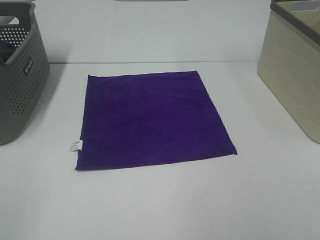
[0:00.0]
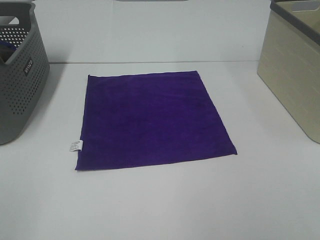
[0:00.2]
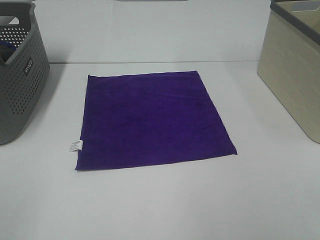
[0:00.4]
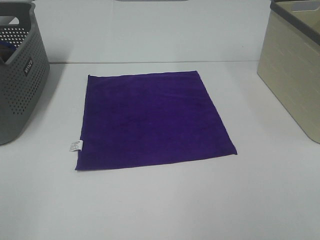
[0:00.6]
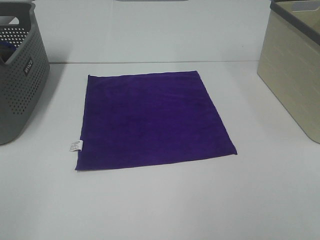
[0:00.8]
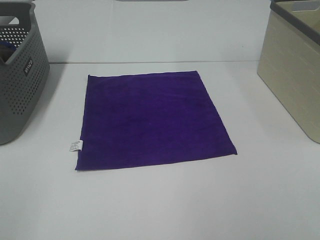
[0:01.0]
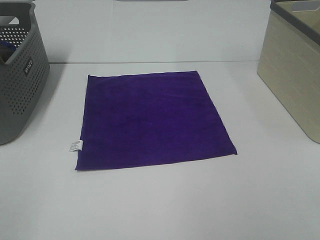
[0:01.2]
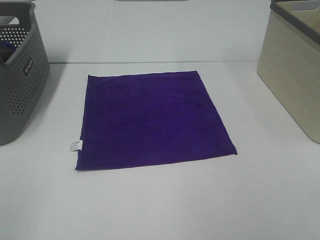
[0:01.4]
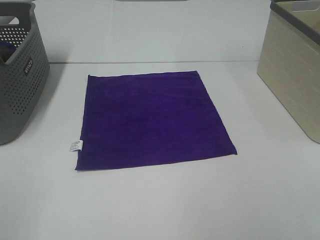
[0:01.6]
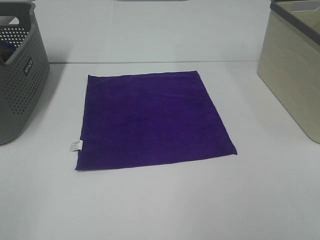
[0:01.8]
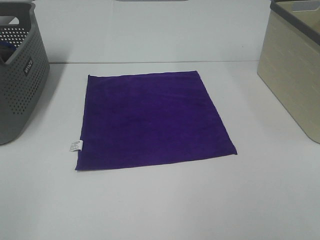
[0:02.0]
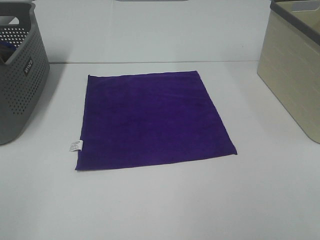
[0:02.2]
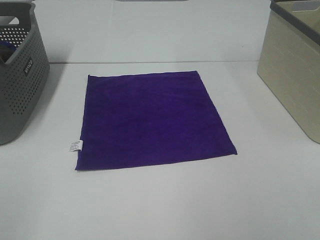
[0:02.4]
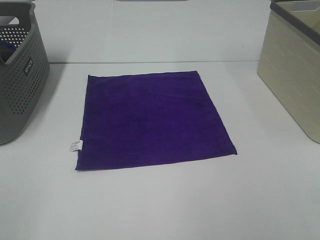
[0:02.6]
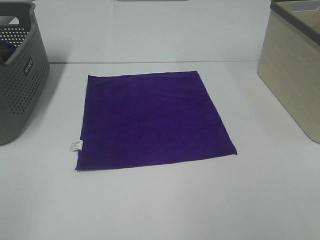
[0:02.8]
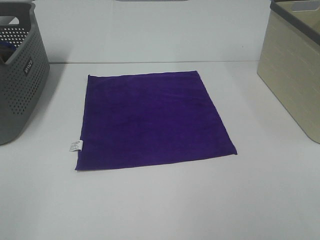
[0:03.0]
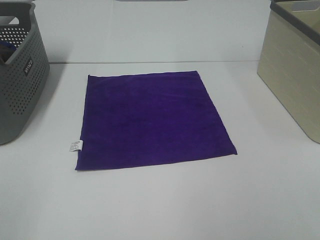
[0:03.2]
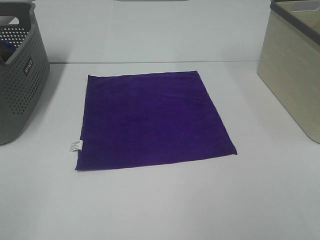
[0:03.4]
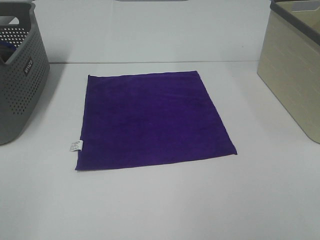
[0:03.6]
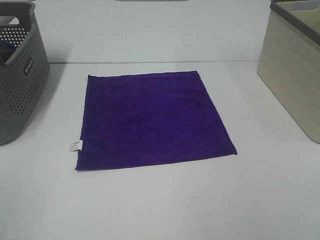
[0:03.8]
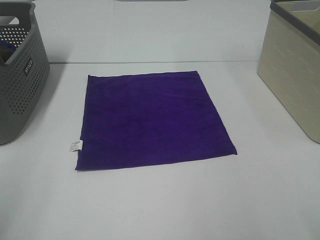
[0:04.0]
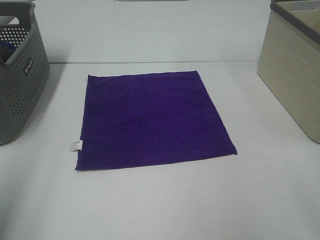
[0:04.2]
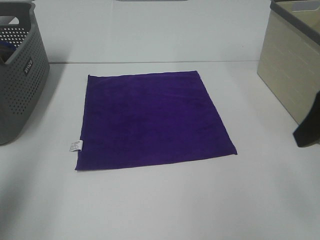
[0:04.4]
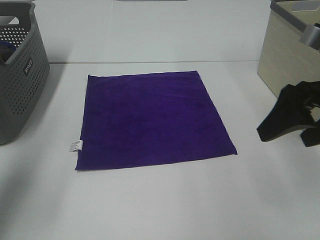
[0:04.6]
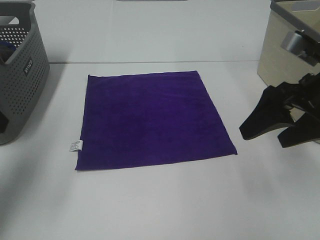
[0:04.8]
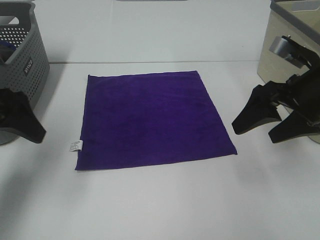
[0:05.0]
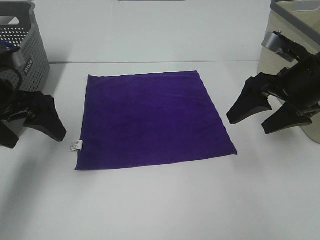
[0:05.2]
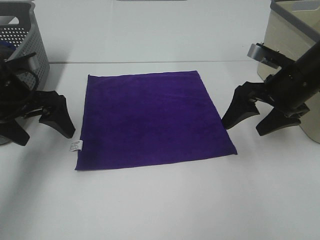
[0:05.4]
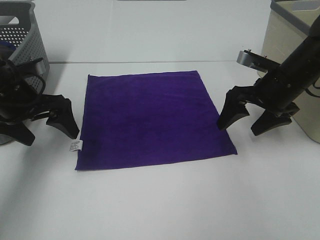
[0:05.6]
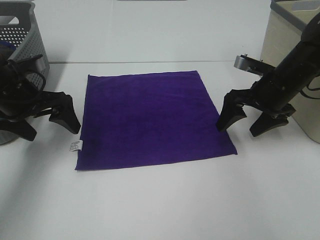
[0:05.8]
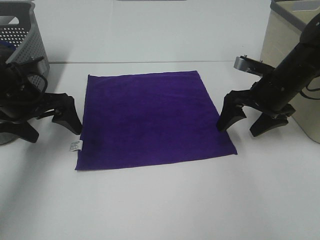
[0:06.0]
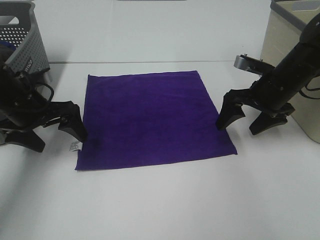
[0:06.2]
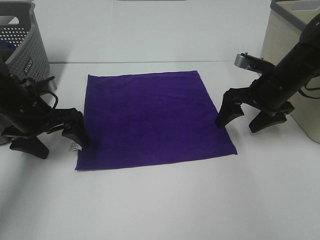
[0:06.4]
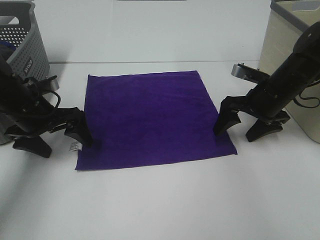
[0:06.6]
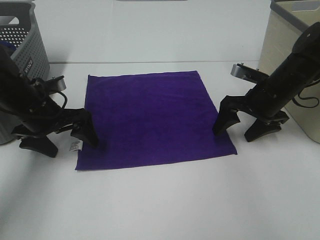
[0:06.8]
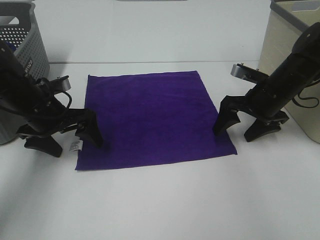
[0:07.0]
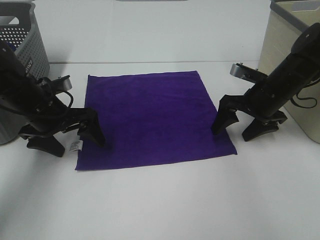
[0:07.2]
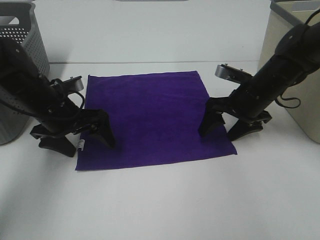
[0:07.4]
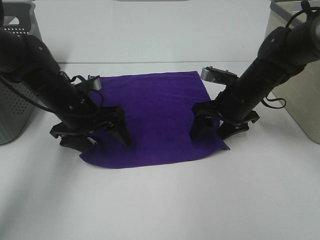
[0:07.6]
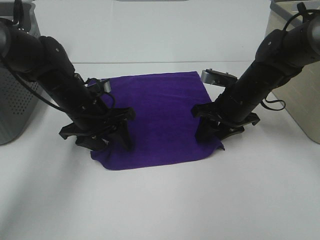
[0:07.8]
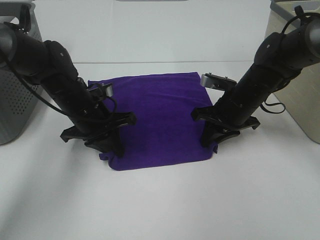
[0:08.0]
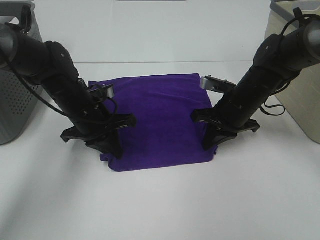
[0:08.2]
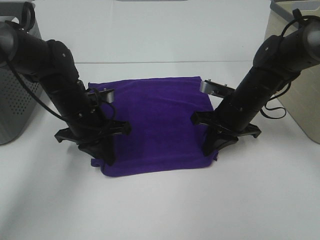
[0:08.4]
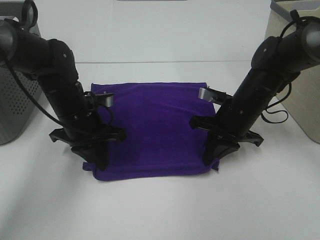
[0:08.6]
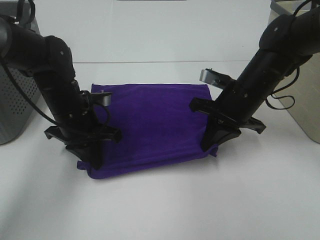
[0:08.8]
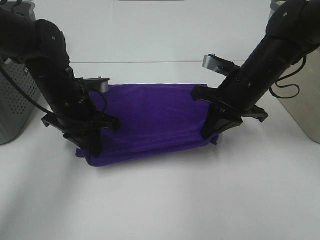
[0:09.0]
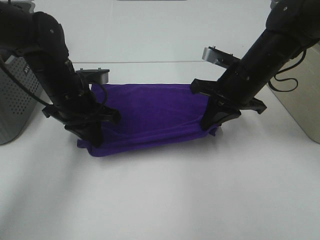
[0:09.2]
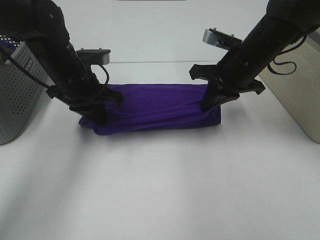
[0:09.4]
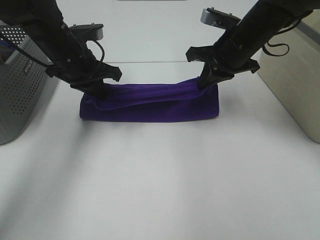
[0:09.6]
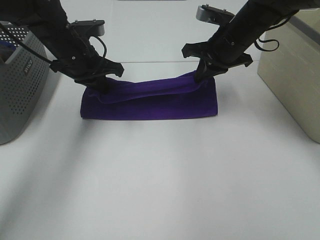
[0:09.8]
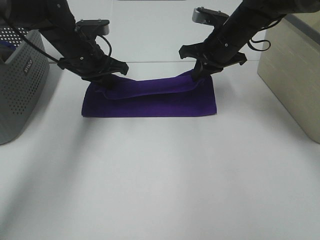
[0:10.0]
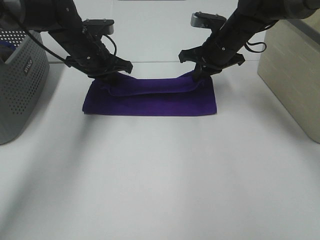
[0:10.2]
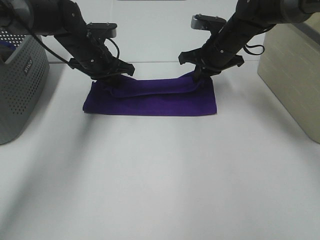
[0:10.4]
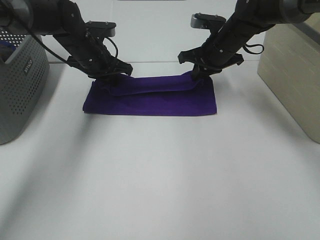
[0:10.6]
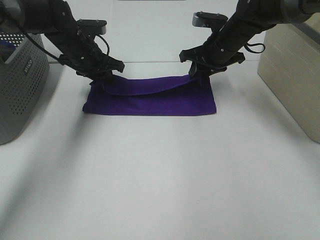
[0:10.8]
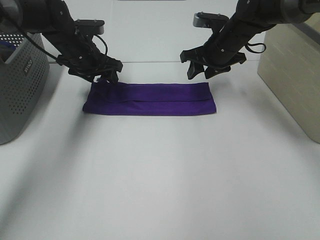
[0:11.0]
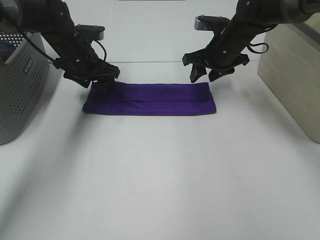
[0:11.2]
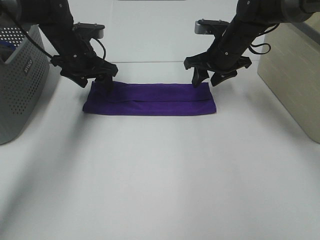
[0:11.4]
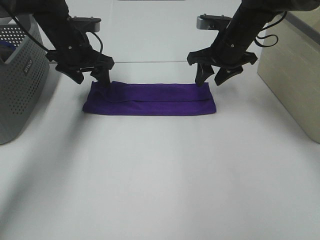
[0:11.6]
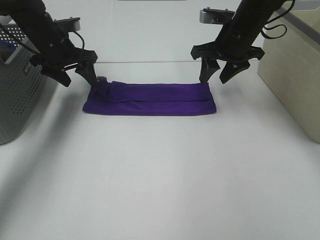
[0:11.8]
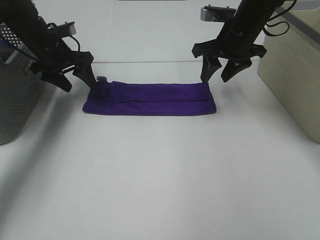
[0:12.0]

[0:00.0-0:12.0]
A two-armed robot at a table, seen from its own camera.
Task of the whole recording: Fold towels.
Step, 0:00.0 to 0:08.2: Left hand: grab the bottom left corner of purple towel.
Step, 0:00.0 to 0:08.2: Right hand: grab the bottom right corner of purple towel.
Step, 0:08.4 to 0:09.8: Left hand: fold the purple towel up.
Step, 0:08.4 to 0:09.8: Right hand: fold the purple towel up.
0:00.0 to 0:03.0: Both grippers stay put.
0:03.0 to 0:04.4: Both grippers travel together forward, approximately 20 cm.
0:04.4 to 0:06.0: The grippers both shift forward and downward by approximately 25 cm.
0:06.0 to 0:07.6: The right gripper goes roughly 5 cm to the left, while the left gripper heads to the right and downward, covering roughly 10 cm.
0:07.6 to 0:09.0: The left gripper closes, while the right gripper is displaced upward by approximately 5 cm, and closes.
0:09.0 to 0:10.4: The grippers both shift forward by some 15 cm.
0:10.4 to 0:12.0: The right gripper ends up about 5 cm from where it was, and opens up. Meanwhile the left gripper moves to the left, some 10 cm, and opens up.

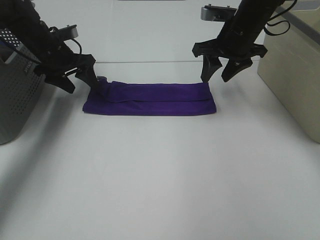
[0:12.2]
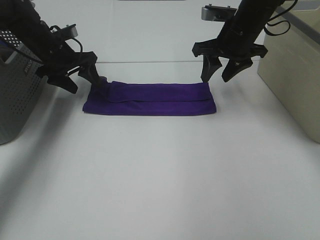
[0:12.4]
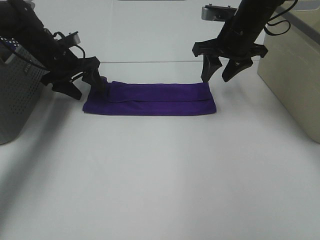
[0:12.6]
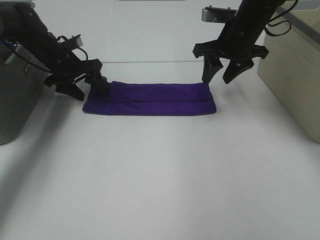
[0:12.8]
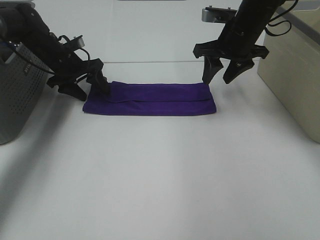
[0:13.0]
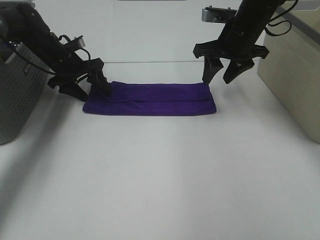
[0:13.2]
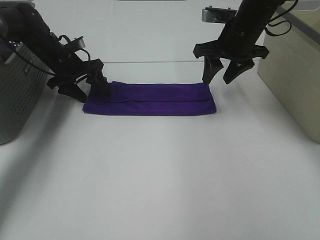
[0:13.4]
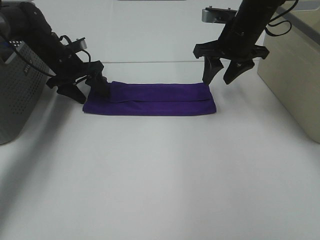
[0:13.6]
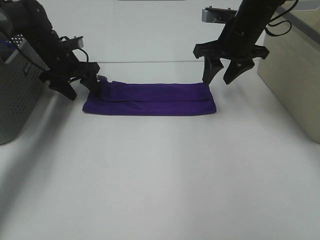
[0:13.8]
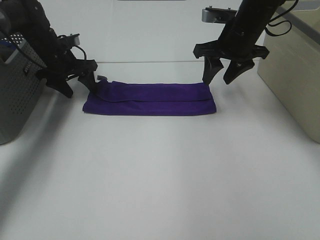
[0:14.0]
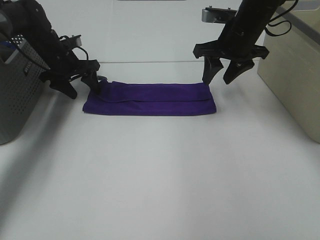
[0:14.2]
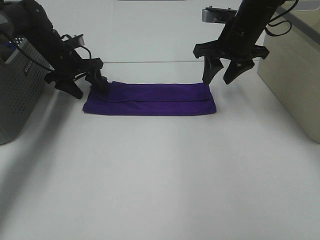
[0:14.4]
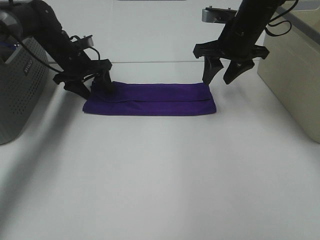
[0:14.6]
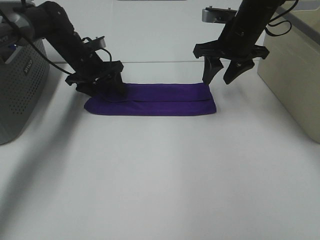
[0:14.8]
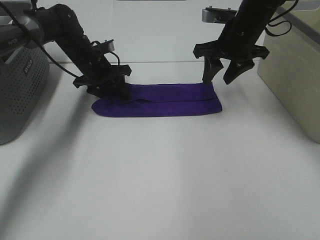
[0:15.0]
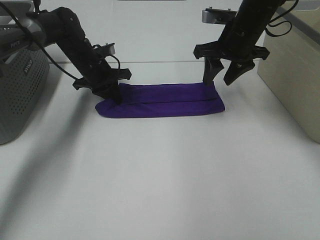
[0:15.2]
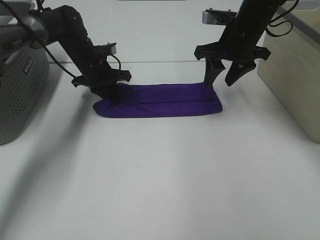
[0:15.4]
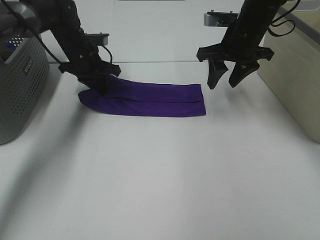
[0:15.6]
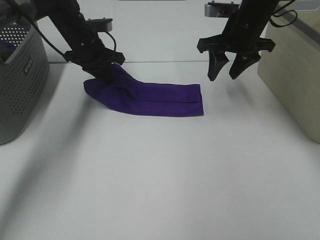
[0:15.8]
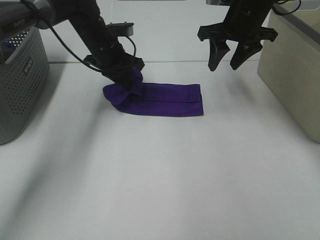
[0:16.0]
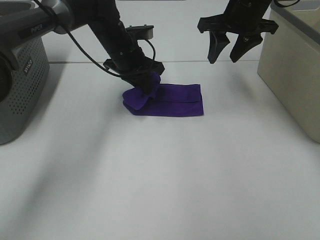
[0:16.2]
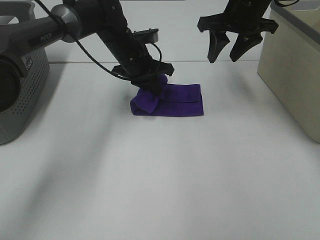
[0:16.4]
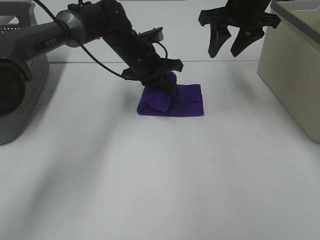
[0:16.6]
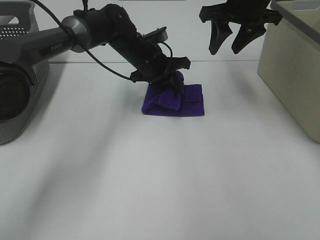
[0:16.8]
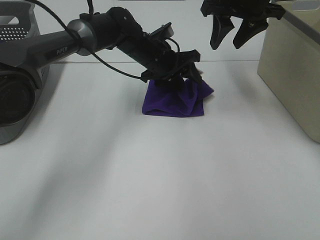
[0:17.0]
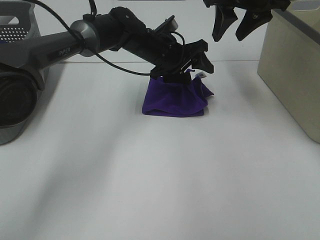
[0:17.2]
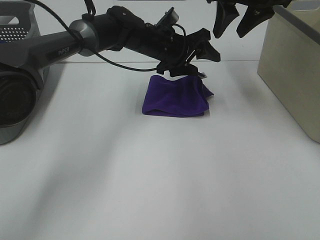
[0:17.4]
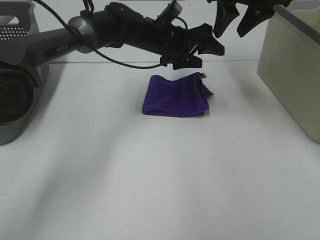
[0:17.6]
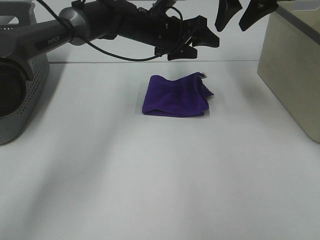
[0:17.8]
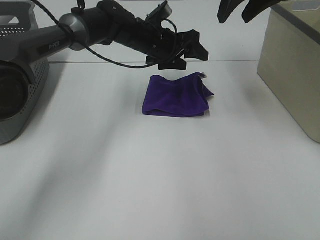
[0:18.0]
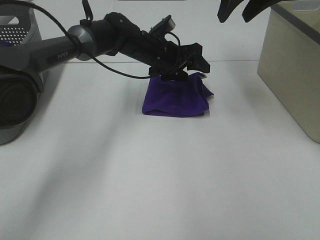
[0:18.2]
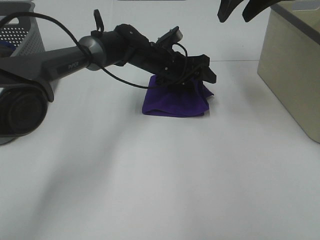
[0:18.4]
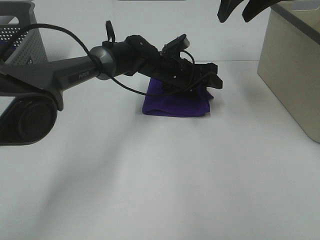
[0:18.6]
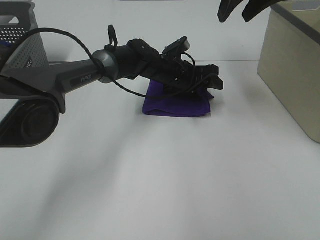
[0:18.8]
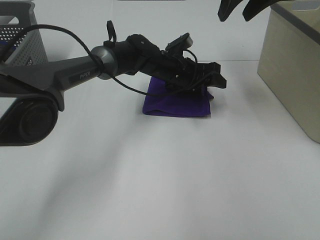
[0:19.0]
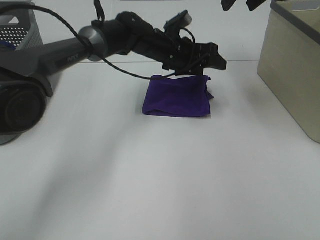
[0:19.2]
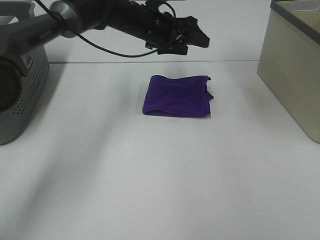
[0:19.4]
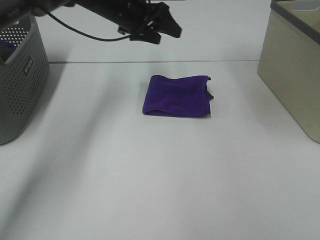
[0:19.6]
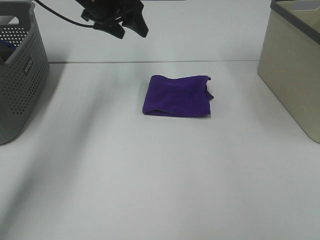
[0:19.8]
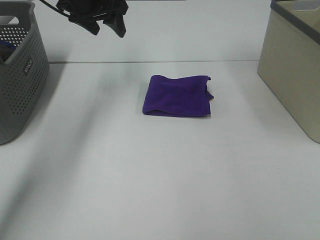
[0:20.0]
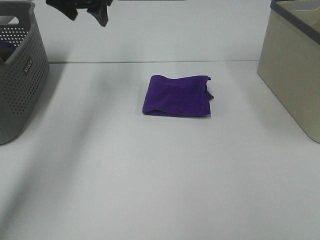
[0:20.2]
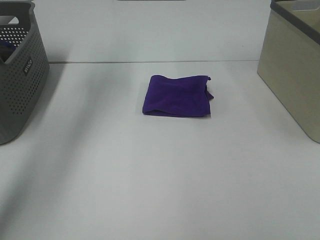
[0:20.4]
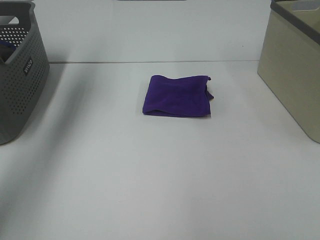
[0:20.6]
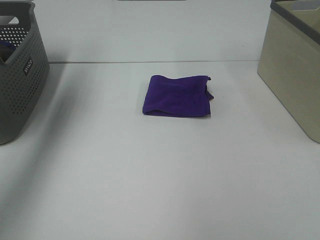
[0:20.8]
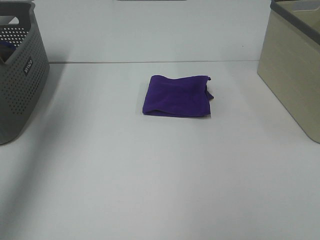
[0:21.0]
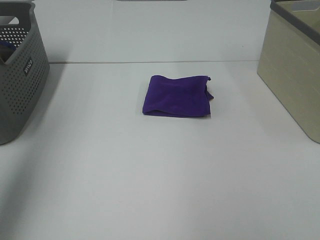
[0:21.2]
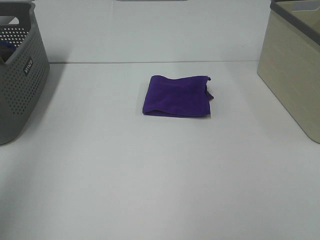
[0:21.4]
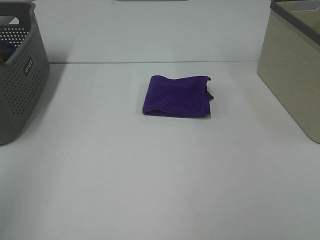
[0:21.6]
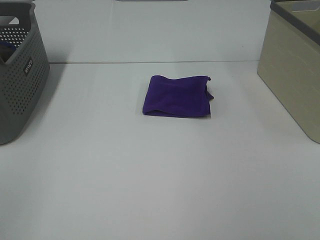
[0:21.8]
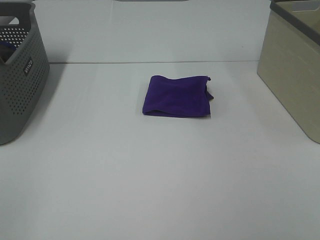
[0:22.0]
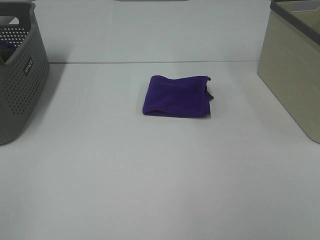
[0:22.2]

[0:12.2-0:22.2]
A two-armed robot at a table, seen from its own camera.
Task of the whole recording: Fold towels.
Step, 0:12.2 to 0:16.8: Left hand: fold the purple towel from left to right.
Step, 0:17.0 to 0:18.8: Right hand: adjust the purple towel.
0:12.2 to 0:13.6: The grippers make only small movements.
0:13.6 to 0:15.0: The left gripper is displaced to the right by roughly 5 cm.
0:15.0 to 0:16.4: The right gripper shifts approximately 5 cm upward. The left gripper travels to the right by approximately 10 cm, and closes its fingers.
0:16.4 to 0:18.0: The left gripper opens up, while the right gripper moves upward, about 10 cm.
0:18.0 to 0:19.4: The right gripper shifts roughly 5 cm upward.
0:19.4 to 0:20.8: The left gripper travels to the left, upward and backward by approximately 35 cm. Meanwhile the right gripper is displaced backward by approximately 20 cm.
0:20.8 to 0:22.2: The left gripper heads backward, covering some 40 cm.
